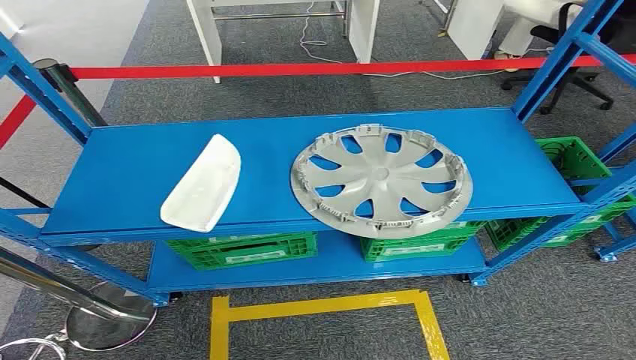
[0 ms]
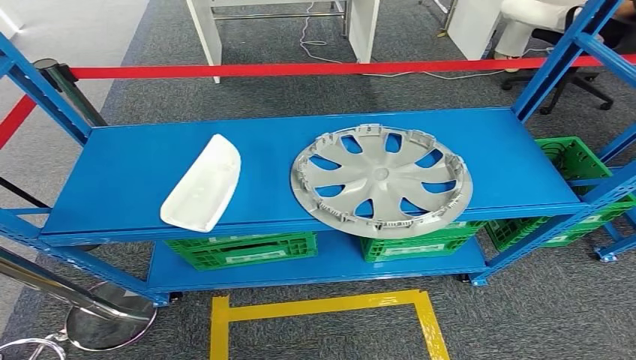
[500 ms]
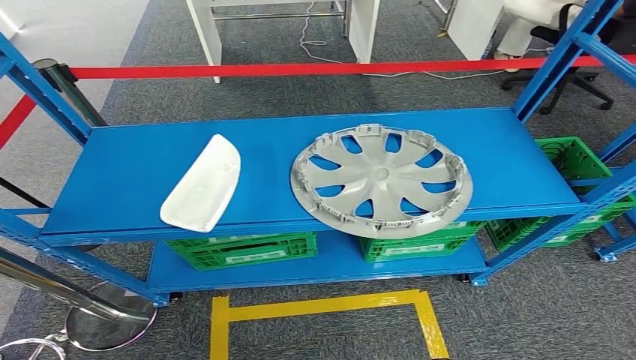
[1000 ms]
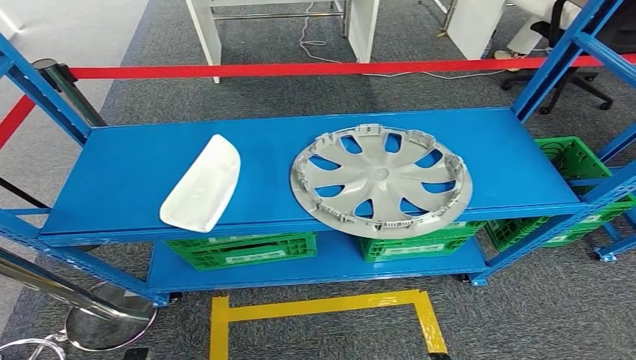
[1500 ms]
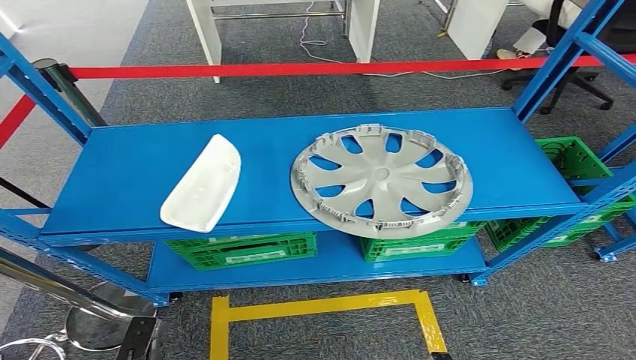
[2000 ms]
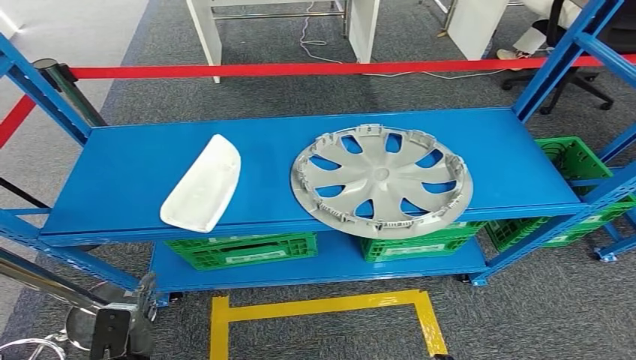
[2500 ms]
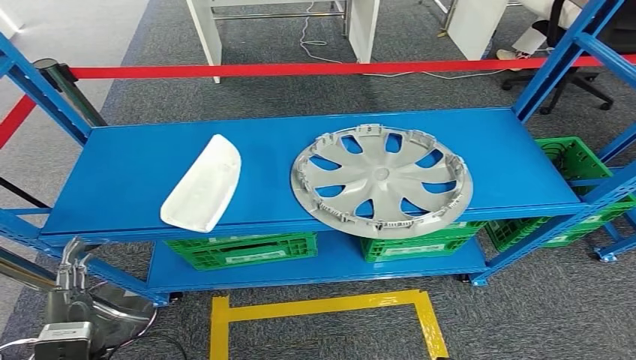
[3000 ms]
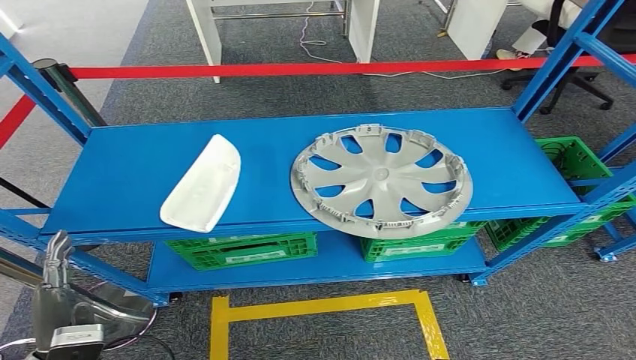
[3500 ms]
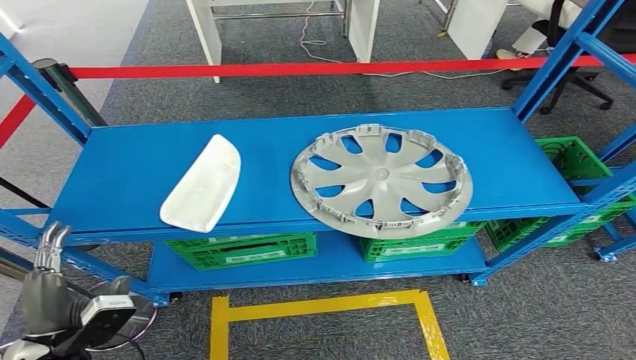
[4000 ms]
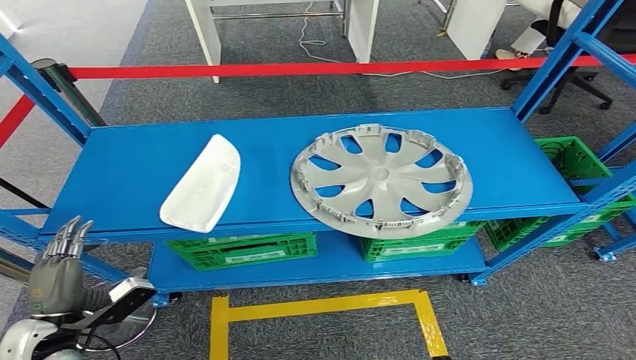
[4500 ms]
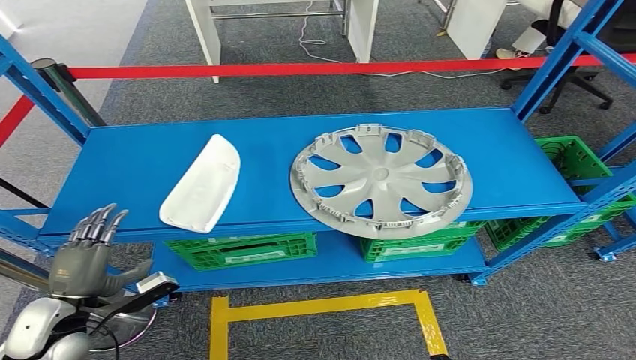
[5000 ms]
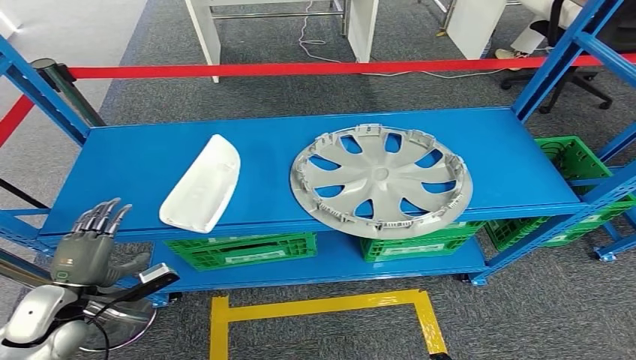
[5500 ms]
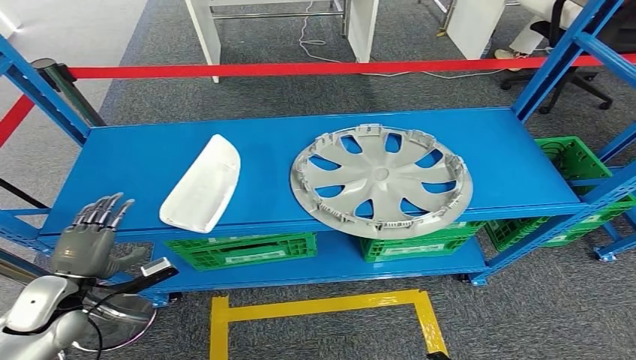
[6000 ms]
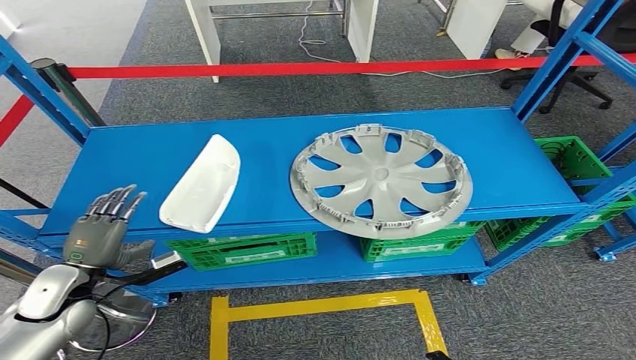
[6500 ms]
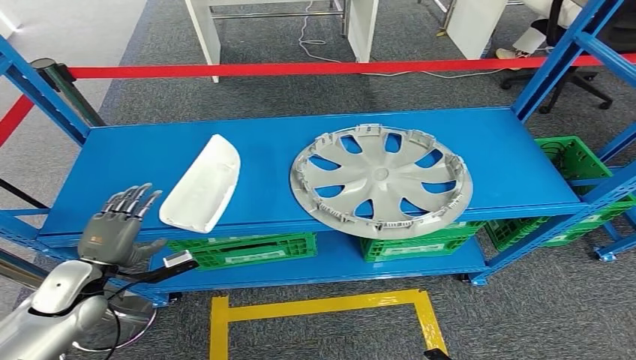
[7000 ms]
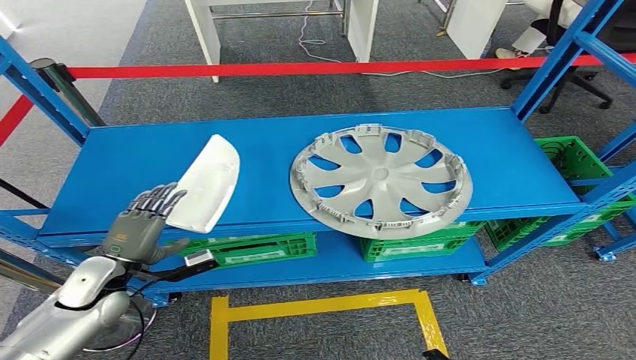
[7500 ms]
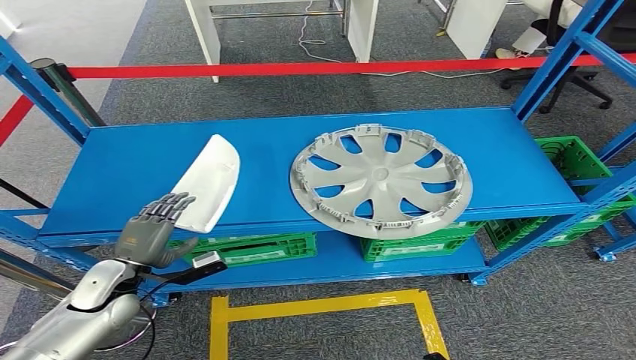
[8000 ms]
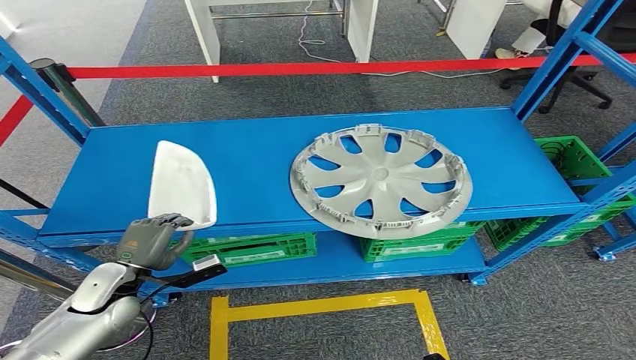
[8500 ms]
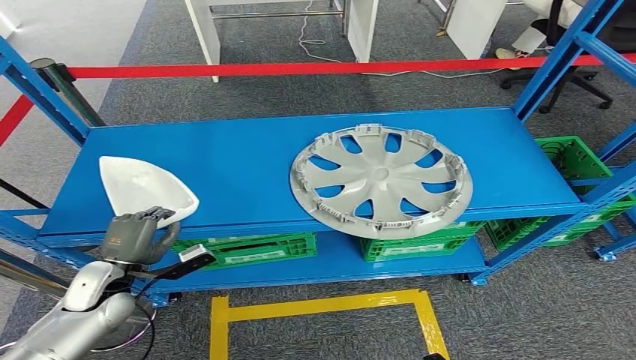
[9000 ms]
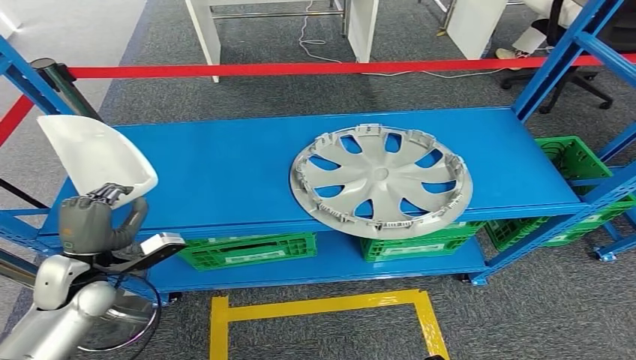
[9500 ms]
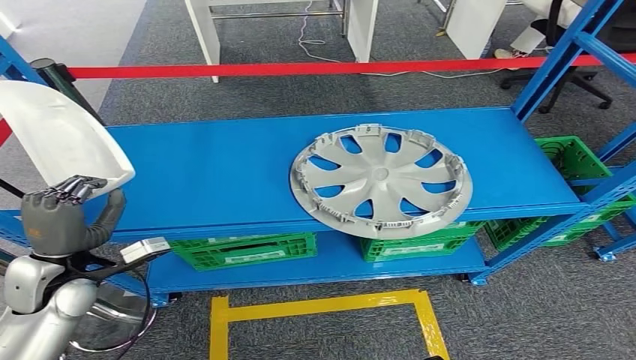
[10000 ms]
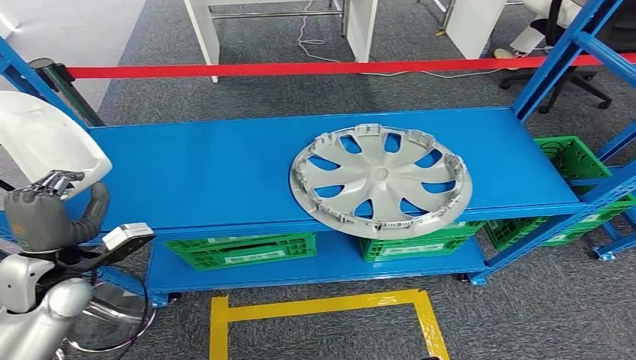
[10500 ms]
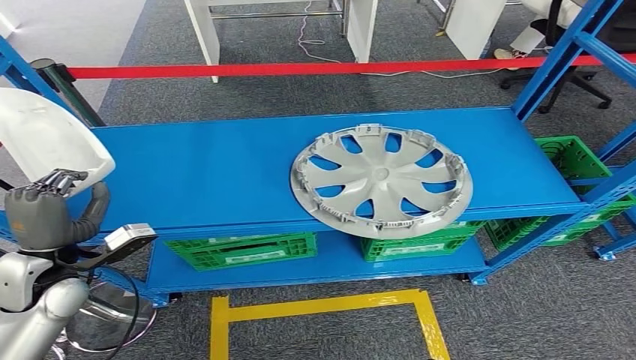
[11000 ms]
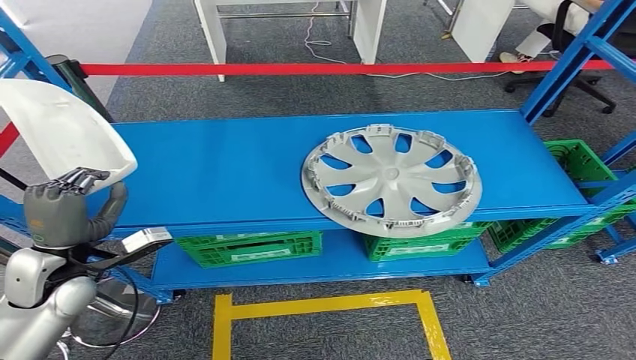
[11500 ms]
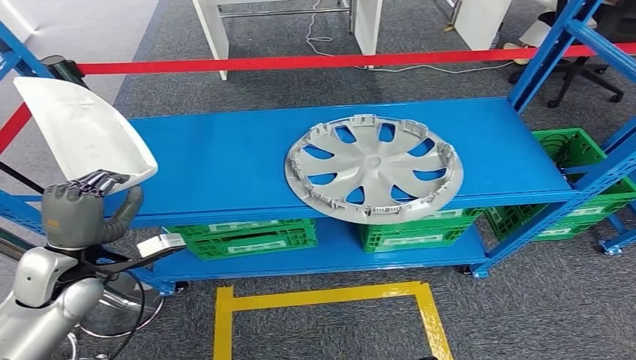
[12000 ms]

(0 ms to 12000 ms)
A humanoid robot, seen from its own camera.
2000 ms - 4000 ms: The left hand shifts about 20 cm upward and forward.
4000 ms - 6000 ms: The left hand goes approximately 10 cm forward.
6000 ms - 8000 ms: The left hand moves to the right, some 5 cm.
8000 ms - 10000 ms: The left hand travels upward by some 10 cm.

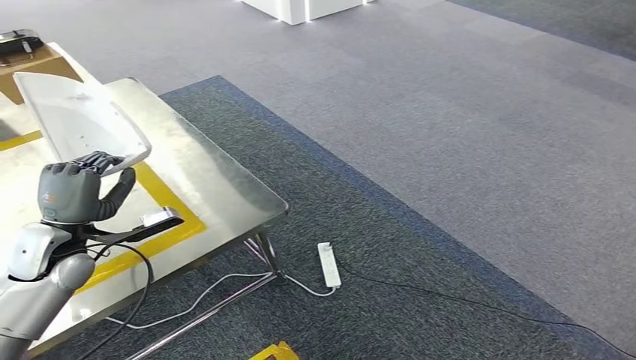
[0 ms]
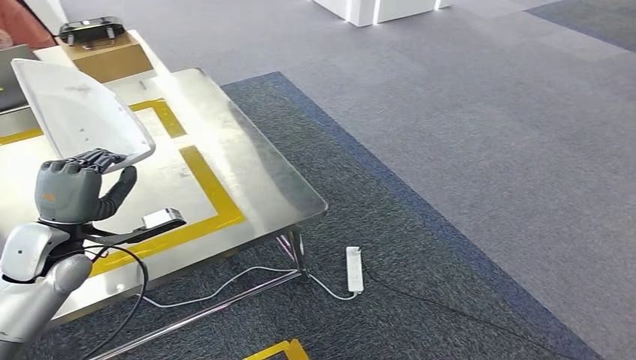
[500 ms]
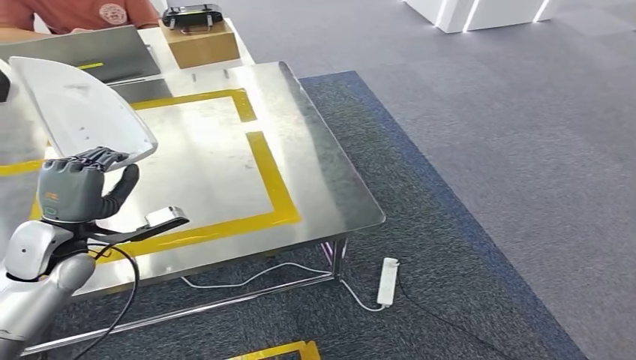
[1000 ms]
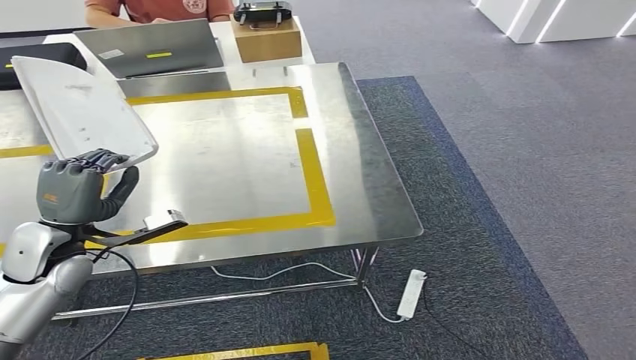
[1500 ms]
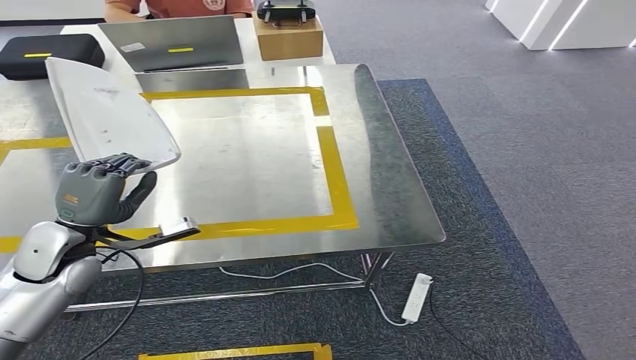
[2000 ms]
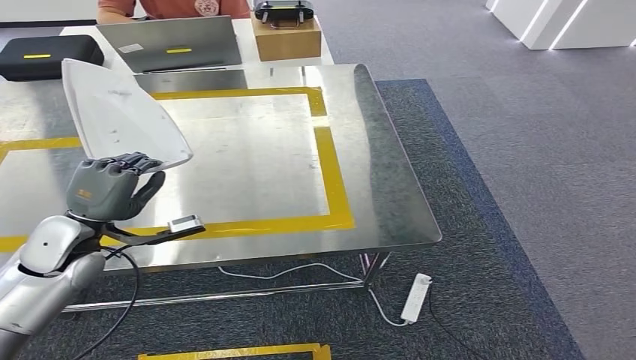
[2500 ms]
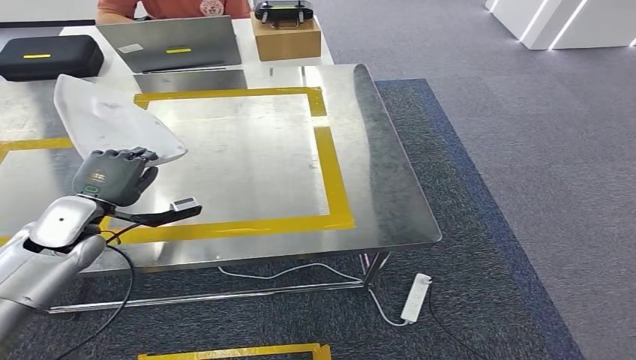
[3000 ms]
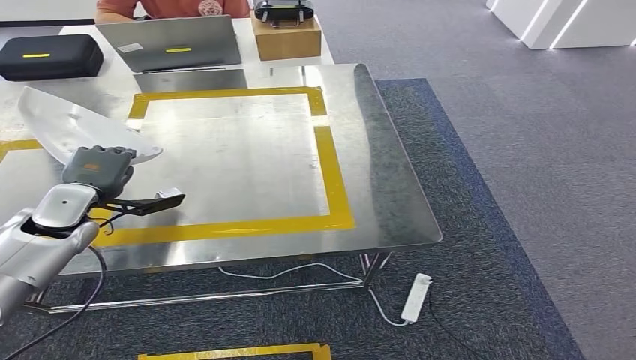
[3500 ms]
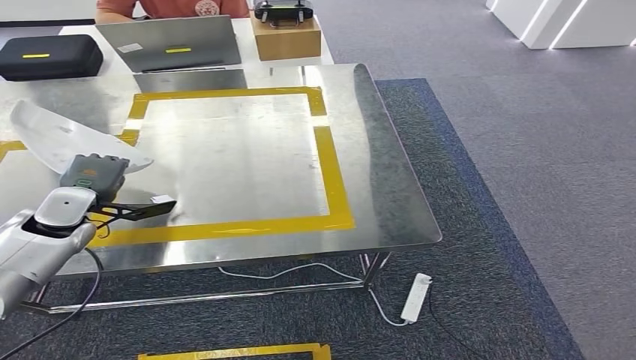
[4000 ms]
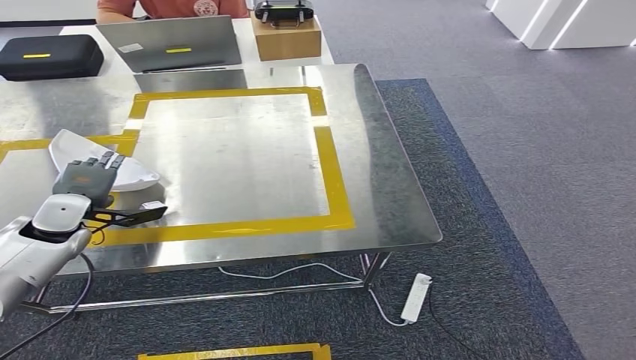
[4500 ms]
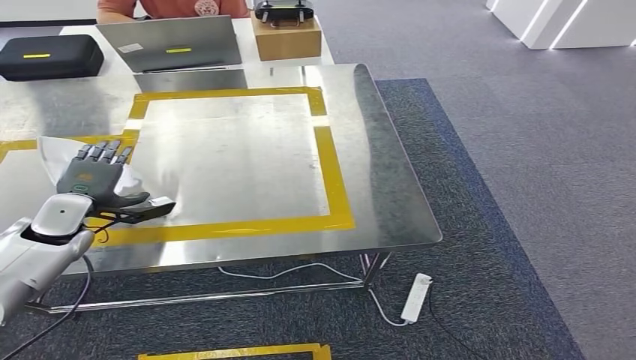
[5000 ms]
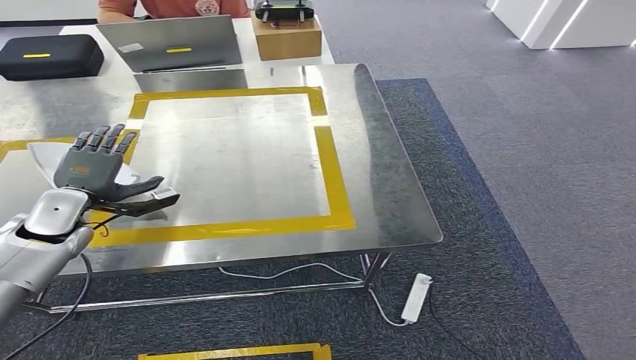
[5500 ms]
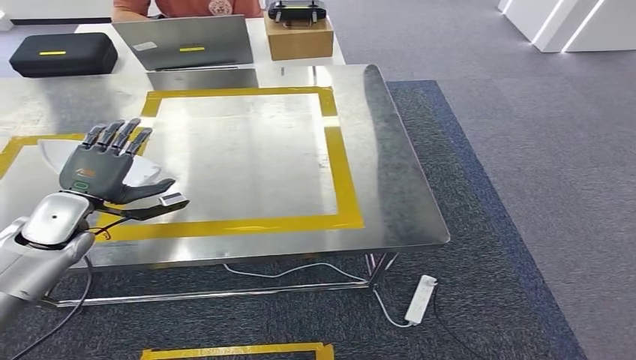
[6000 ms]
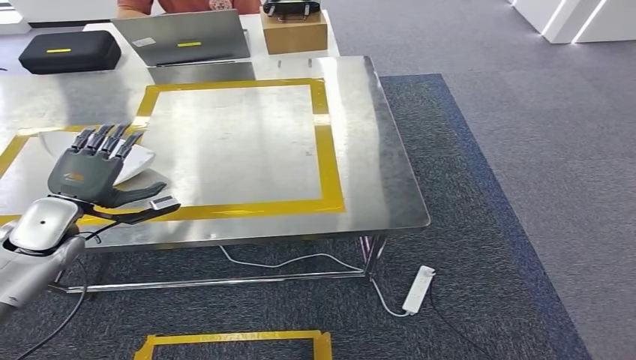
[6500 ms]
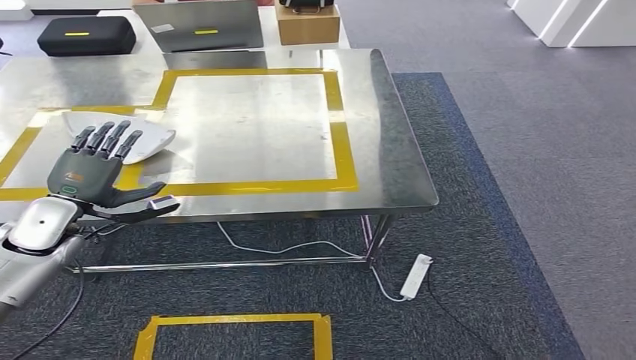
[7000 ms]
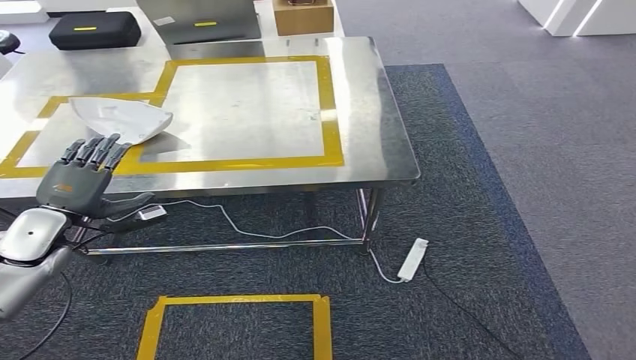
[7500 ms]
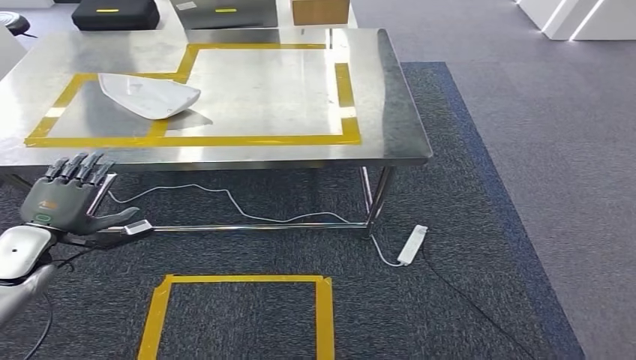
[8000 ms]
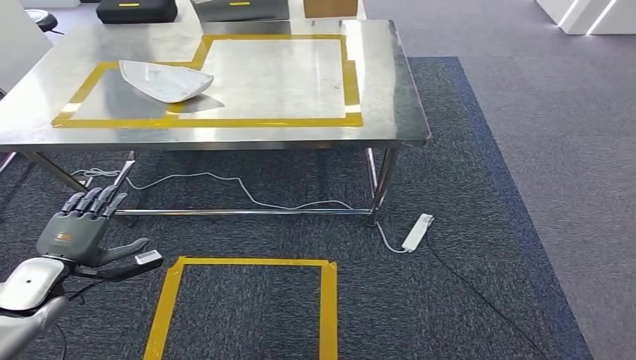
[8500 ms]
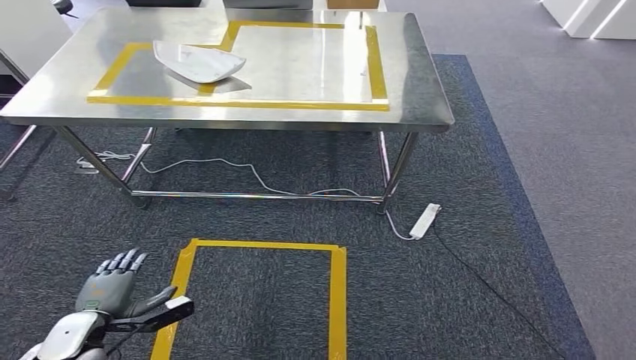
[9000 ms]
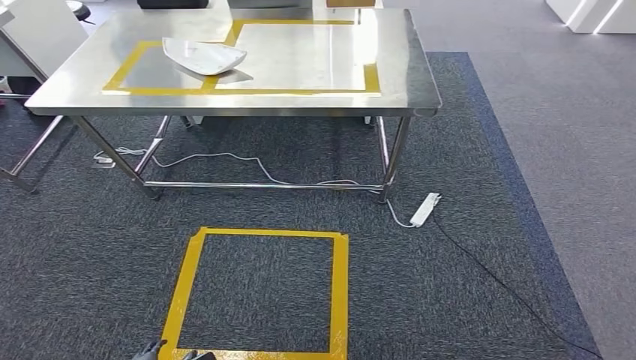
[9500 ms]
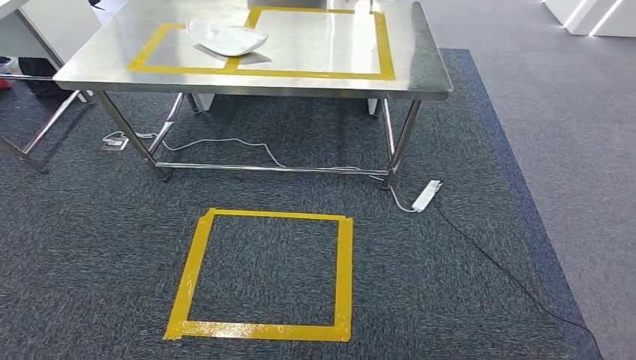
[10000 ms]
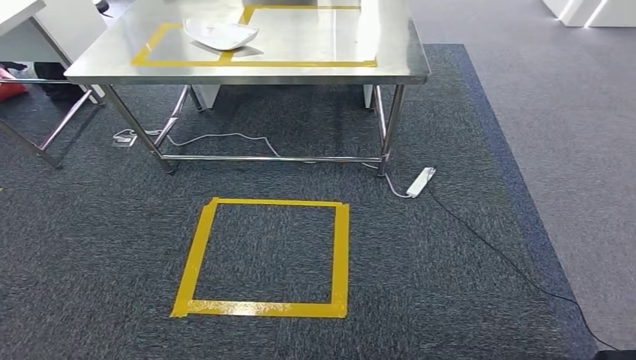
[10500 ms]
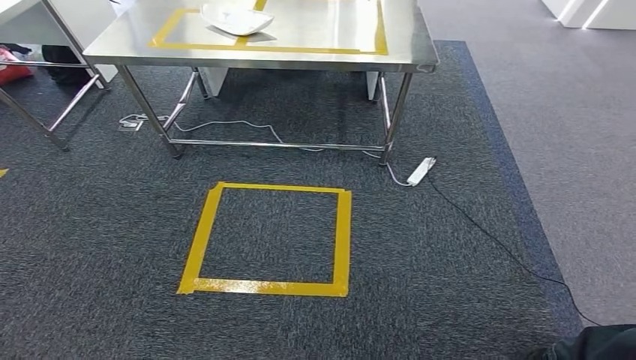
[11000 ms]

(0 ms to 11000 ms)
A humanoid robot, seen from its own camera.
Step, 0 ms - 2000 ms: Move the small component to the workbench.
Step, 2500 ms - 8000 ms: Insert the small component into the corresponding slot on the workbench.
2000 ms - 3500 ms: The left hand moves forward, roughly 10 cm.
3500 ms - 5500 ms: The hands move only a little.
